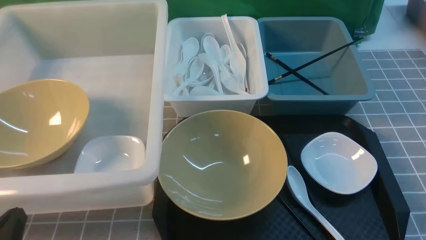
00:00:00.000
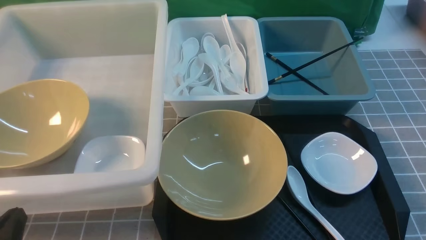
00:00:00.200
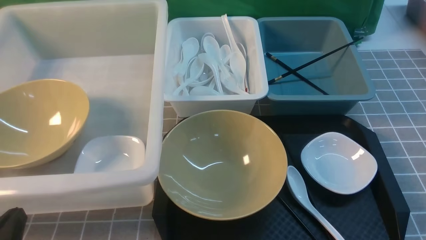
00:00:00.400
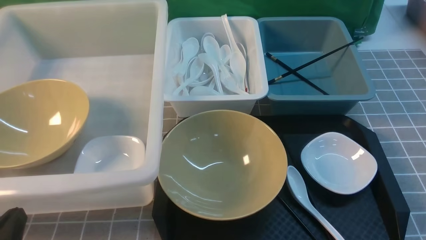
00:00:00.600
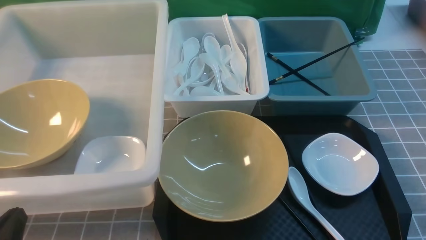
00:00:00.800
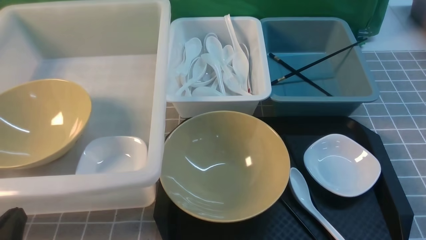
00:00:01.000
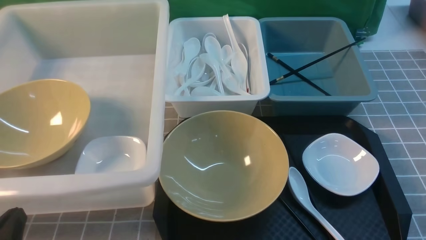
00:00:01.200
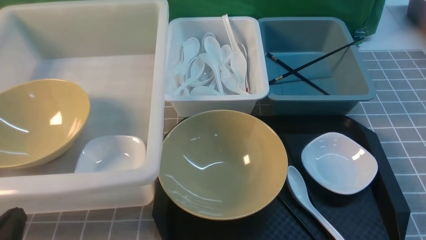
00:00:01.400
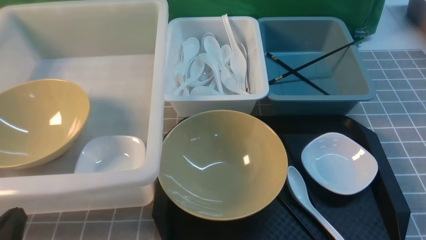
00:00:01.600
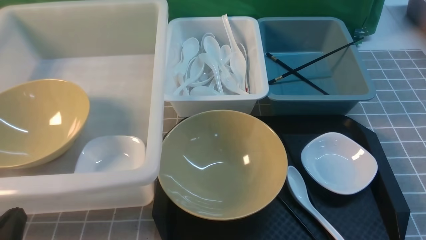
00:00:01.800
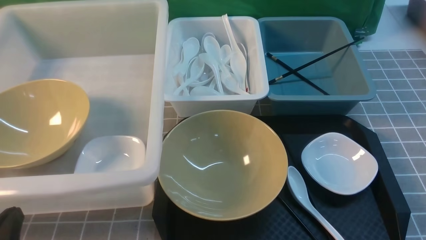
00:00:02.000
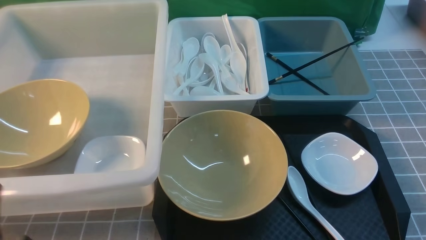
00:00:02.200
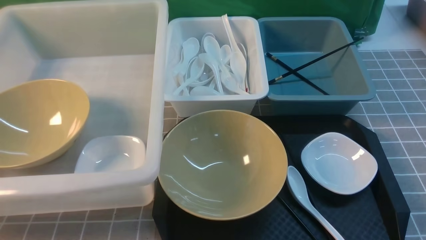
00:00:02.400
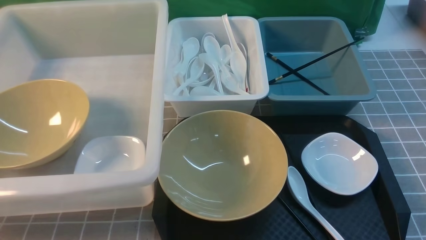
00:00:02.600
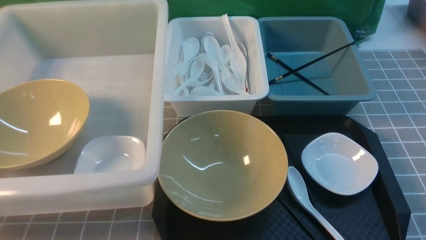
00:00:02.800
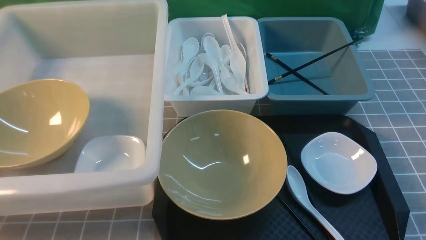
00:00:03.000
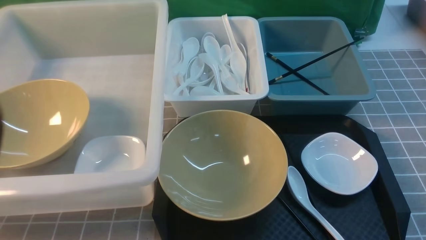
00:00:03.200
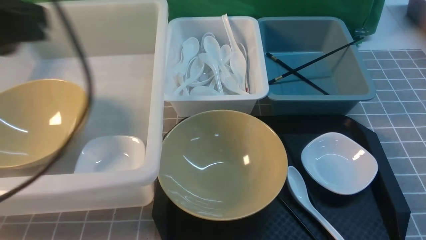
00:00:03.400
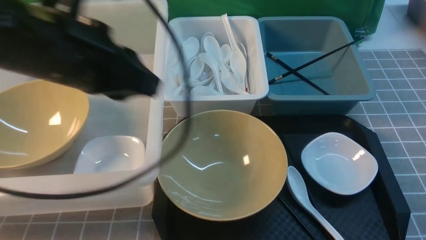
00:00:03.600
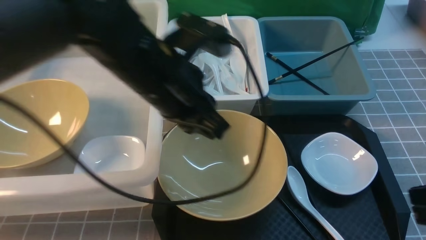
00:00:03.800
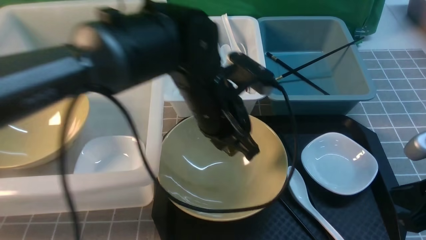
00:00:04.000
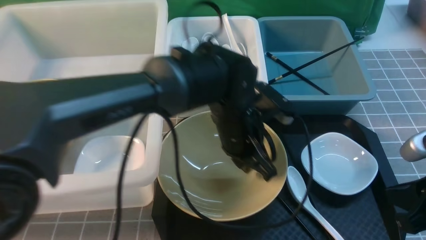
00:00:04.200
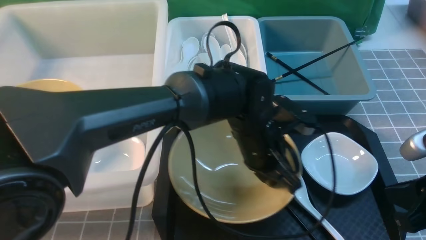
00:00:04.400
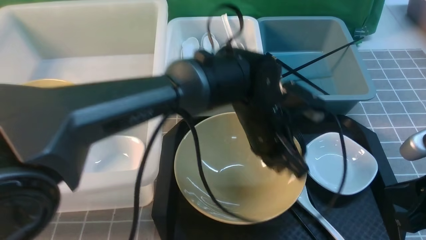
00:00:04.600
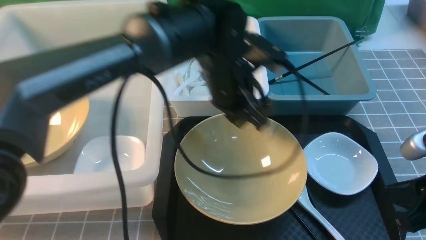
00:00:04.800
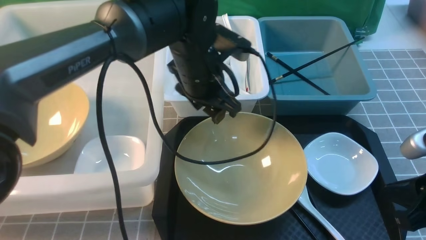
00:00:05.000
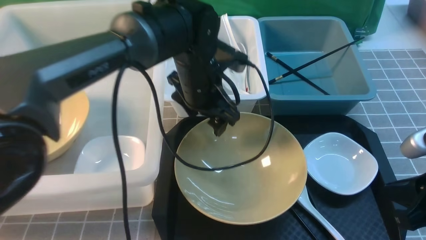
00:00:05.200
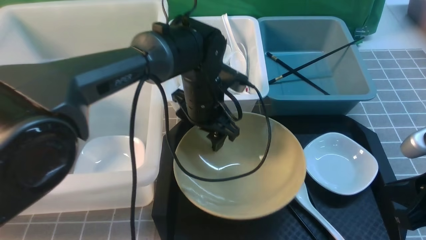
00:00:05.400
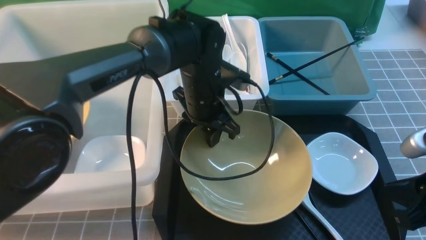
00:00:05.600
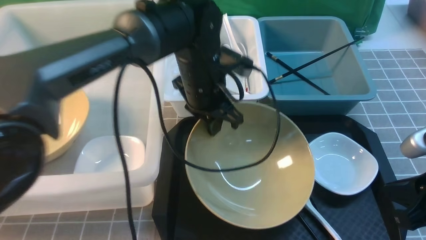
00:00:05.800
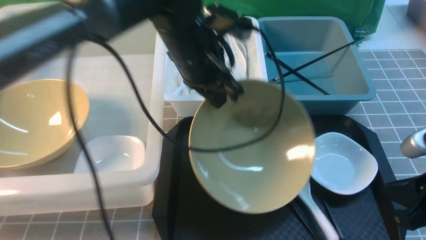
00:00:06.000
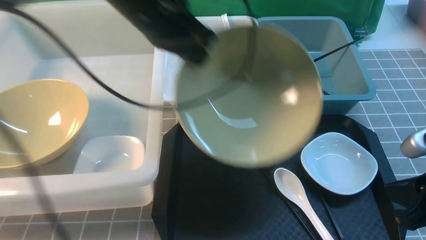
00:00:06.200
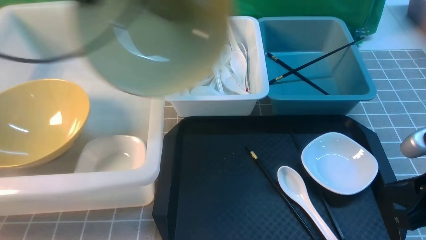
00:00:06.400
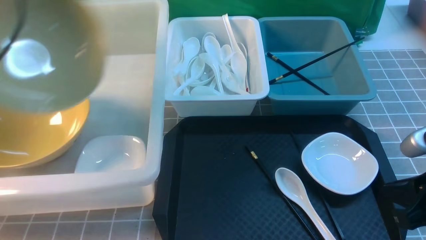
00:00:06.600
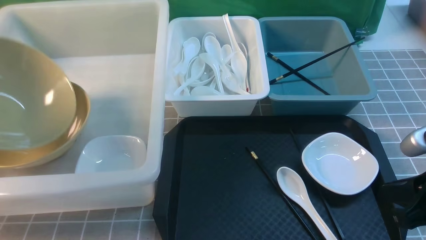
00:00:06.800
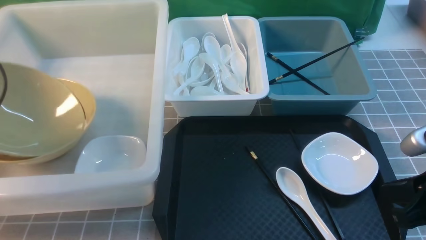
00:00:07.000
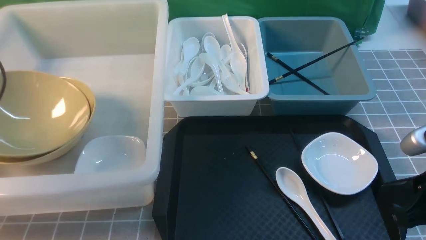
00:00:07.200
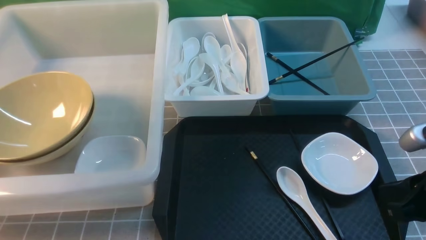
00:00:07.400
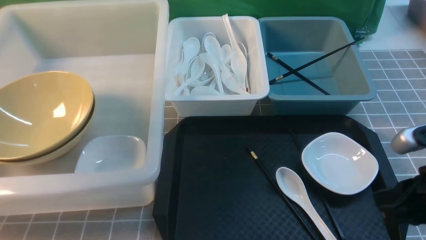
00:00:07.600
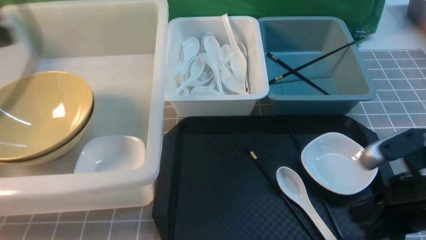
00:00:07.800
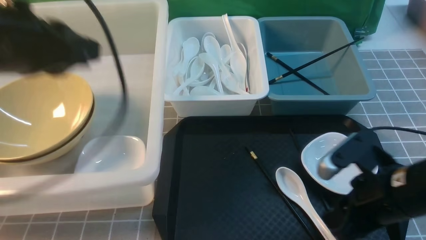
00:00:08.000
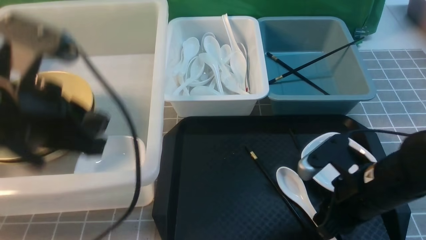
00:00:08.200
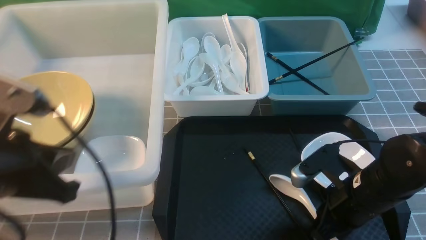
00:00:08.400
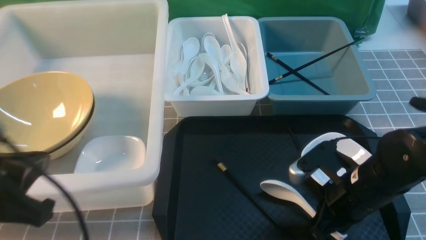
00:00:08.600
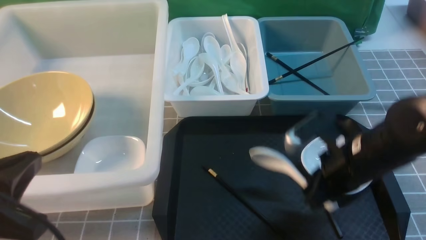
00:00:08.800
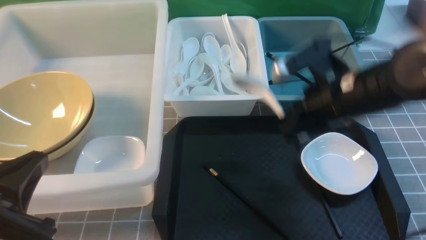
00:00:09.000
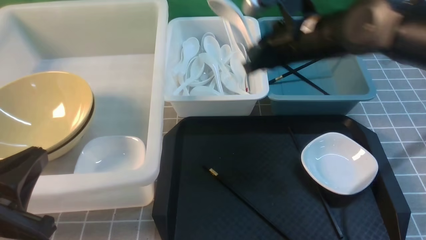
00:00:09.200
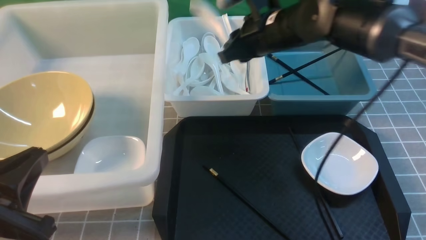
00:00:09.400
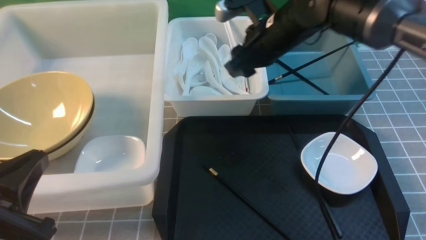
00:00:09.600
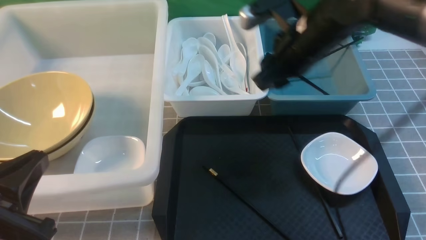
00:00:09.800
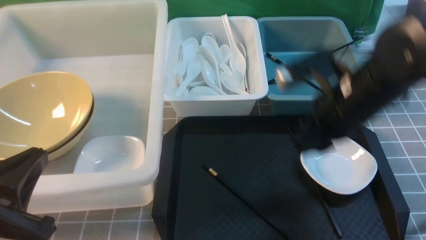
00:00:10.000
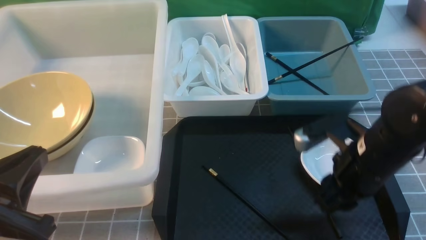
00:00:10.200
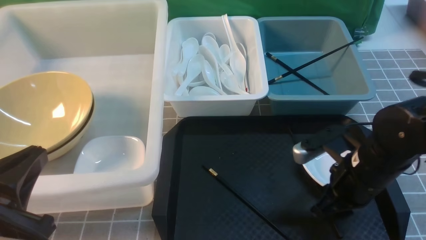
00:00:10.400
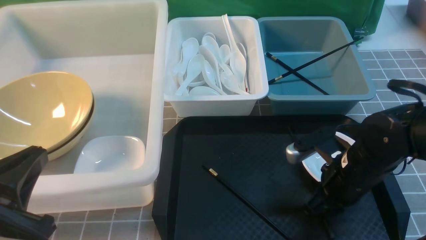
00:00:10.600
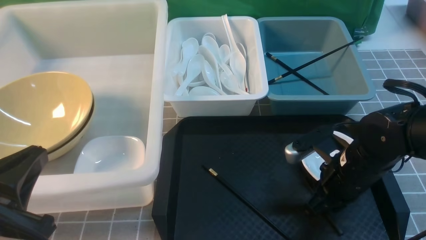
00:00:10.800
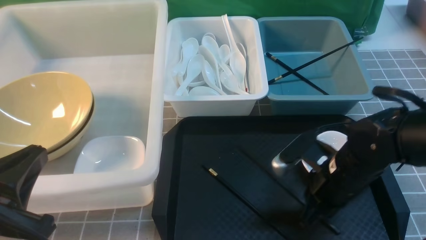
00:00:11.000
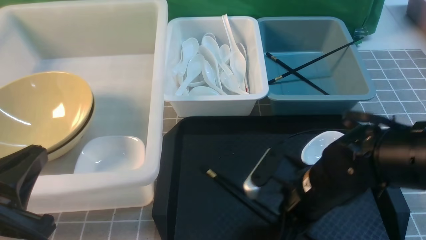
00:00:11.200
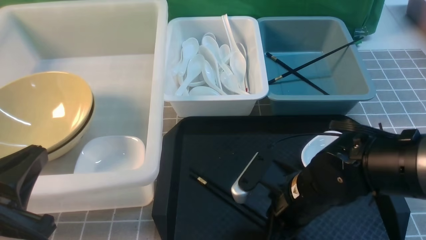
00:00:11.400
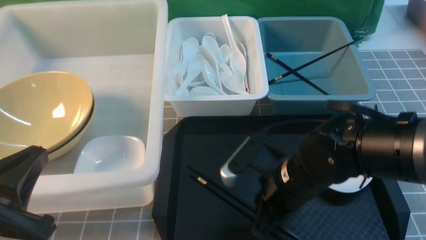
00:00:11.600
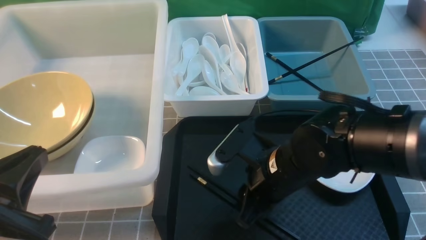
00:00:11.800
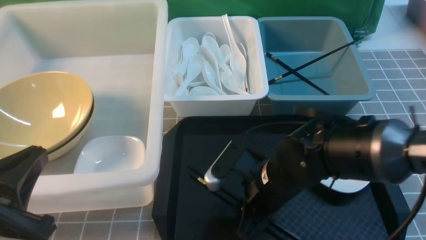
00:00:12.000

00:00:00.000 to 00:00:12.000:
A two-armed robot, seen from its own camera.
Task of the whole recording: on grey table put chopsticks spoon bowls plates into blue grey white boxes.
Step, 00:00:00.000 to 00:00:05.600: use the left arm to grab the yellow noodle bowl on the left.
Step, 00:00:05.800 to 00:00:07.400: use the left arm to put the noodle bowl into the large storage box on the left.
Step, 00:00:07.600 to 00:00:08.600: use the right arm to grab the soup spoon in the middle.
Step, 00:00:08.800 to 00:00:09.600: use the right arm to put the soup spoon into the small storage box in the middle.
00:00:00.000 to 00:00:01.600: The two grippers keep their place.
00:00:01.600 to 00:00:03.000: The grippers both shift upward by about 20 cm. The right gripper closes its fingers.
00:00:03.000 to 00:00:04.400: The left gripper moves to the right, forward and downward, roughly 40 cm, while the right gripper travels forward and downward by about 10 cm.
00:00:04.400 to 00:00:06.000: The left gripper heads to the left, upward and forward, covering about 15 cm, and opens and closes again.
00:00:06.000 to 00:00:07.600: The left gripper heads to the left, covering roughly 30 cm, and opens its fingers.
00:00:07.600 to 00:00:09.000: The right gripper travels forward and to the left by roughly 20 cm, and opens, then closes again, while the left gripper moves backward, to the right and downward, some 25 cm, and closes its fingers.
00:00:09.000 to 00:00:10.400: The right gripper shifts some 10 cm downward and backward, and opens up.
00:00:10.400 to 00:00:12.000: The right gripper moves to the left, some 10 cm, and closes, then opens again.

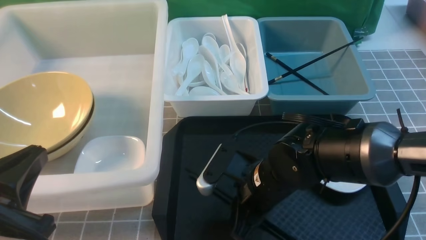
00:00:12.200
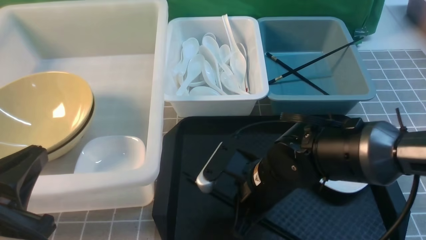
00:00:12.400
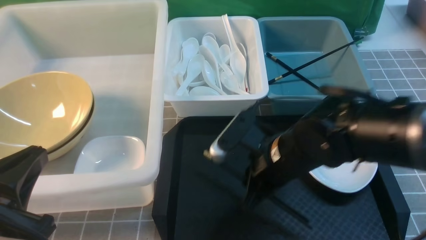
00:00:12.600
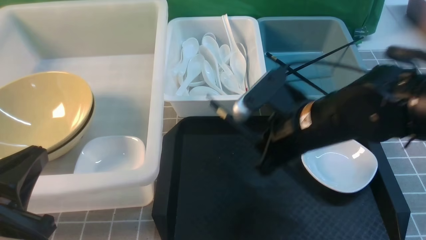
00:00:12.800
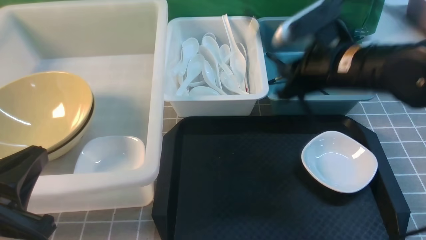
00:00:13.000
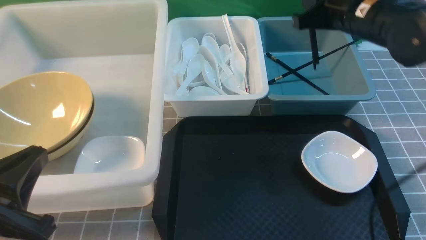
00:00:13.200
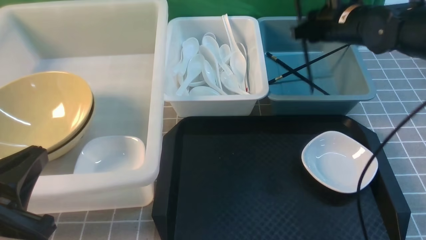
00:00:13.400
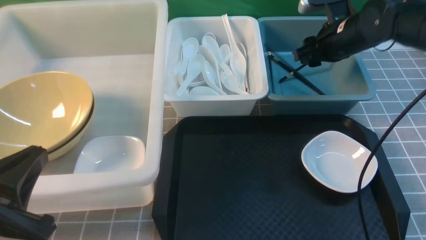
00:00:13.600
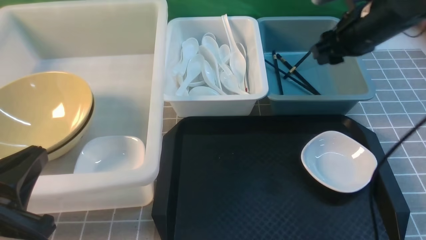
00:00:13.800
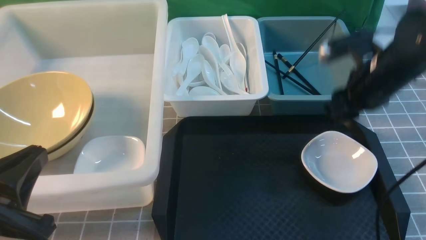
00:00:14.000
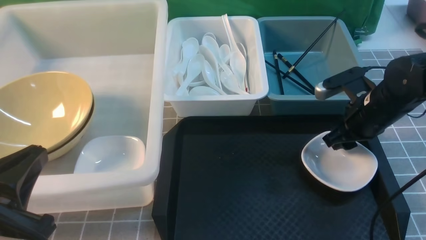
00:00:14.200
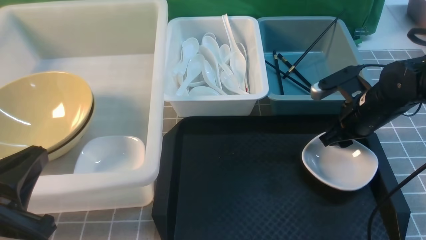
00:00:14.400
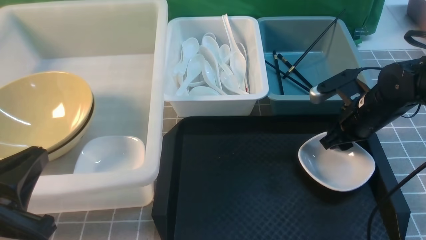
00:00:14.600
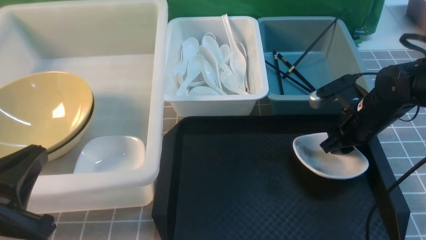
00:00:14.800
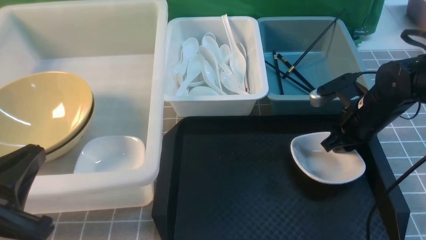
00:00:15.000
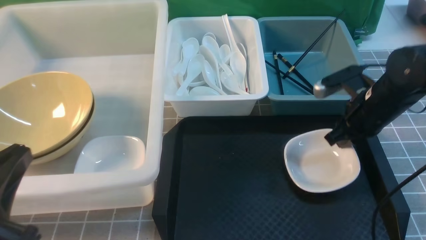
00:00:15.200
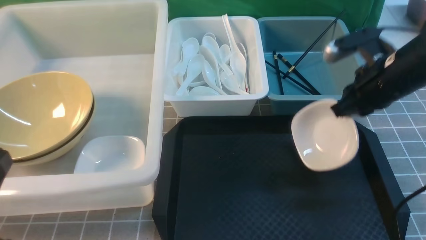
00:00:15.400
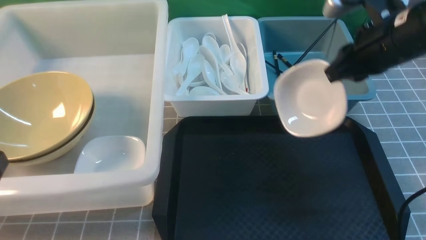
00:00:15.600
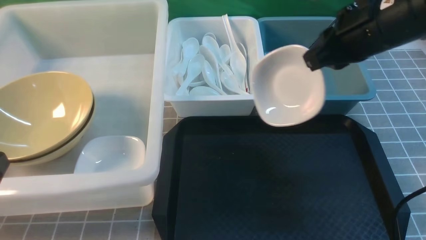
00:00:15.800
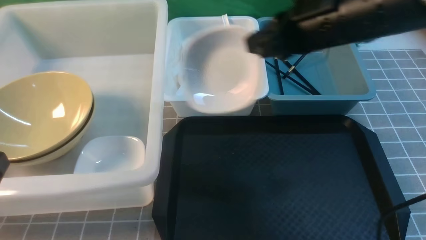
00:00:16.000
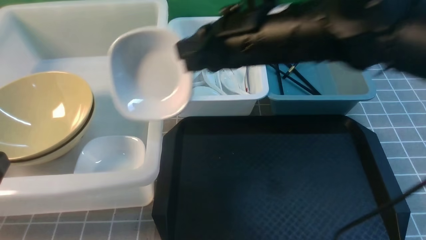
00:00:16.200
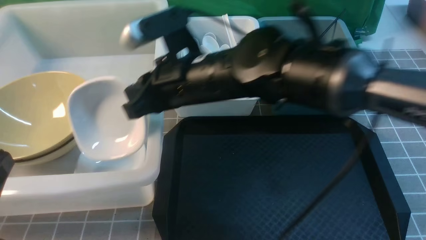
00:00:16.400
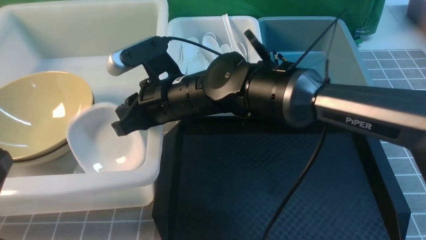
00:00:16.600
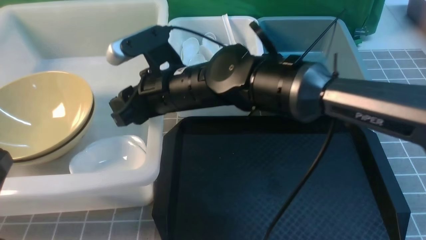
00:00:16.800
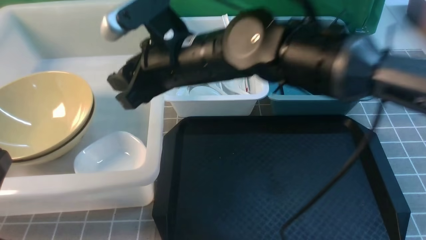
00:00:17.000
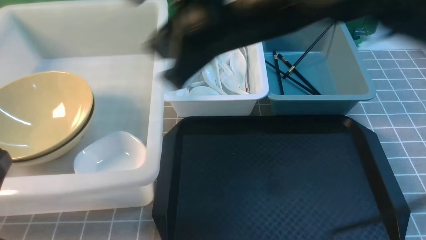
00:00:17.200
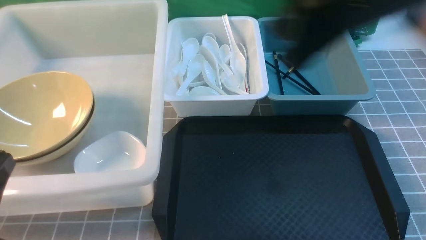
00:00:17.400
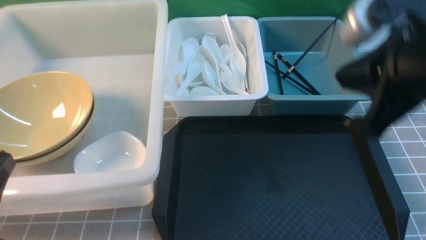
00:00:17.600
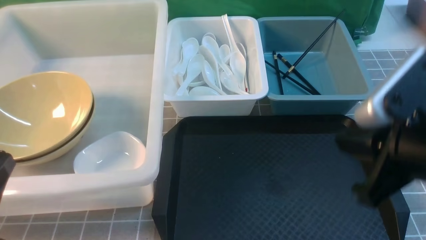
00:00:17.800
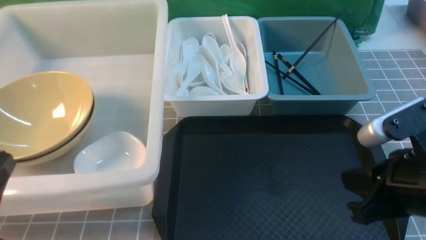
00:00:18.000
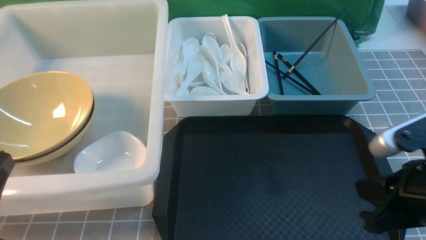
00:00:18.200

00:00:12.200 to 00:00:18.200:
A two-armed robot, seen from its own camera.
Task of the whole recording: on grey table put chopsticks spoon bowls plates into blue grey white boxes.
Step, 00:00:12.800 to 00:00:13.600: use the right arm to put the chopsticks into the small storage box on the right.
Step, 00:00:13.800 to 00:00:15.000: use the right arm to grab the plate.
Step, 00:00:15.400 to 00:00:16.800: use the right arm to put the plate into the large storage box on the left.
00:00:12.200 to 00:00:13.800: The right gripper moves to the right, forward and upward, about 25 cm, and opens its fingers.
00:00:13.800 to 00:00:15.200: The right gripper goes about 5 cm backward, and closes up.
00:00:15.200 to 00:00:16.600: The right gripper shifts about 30 cm to the left.
00:00:16.600 to 00:00:18.200: The right gripper moves to the right and backward, some 35 cm, and closes its fingers.
